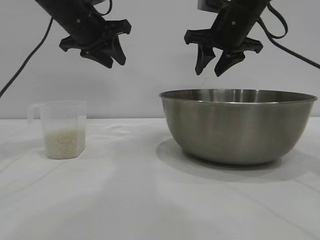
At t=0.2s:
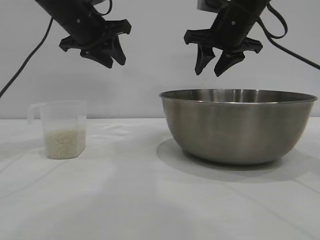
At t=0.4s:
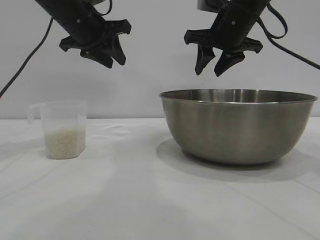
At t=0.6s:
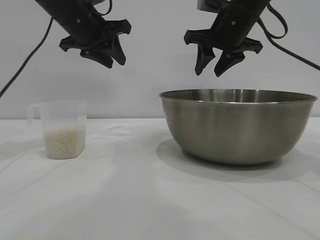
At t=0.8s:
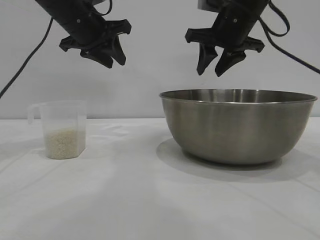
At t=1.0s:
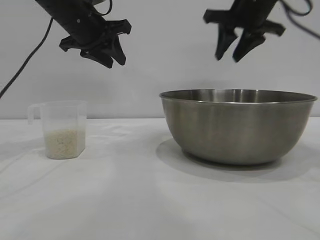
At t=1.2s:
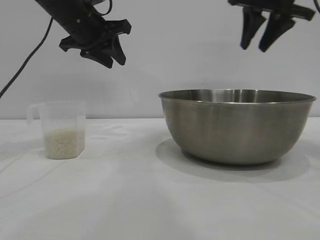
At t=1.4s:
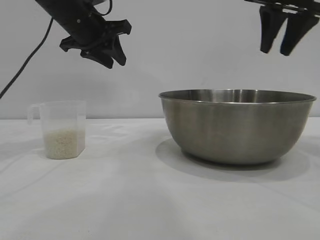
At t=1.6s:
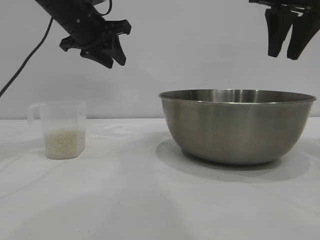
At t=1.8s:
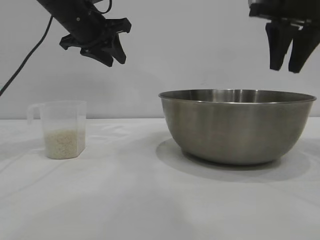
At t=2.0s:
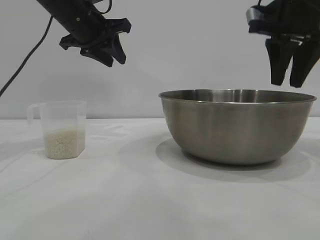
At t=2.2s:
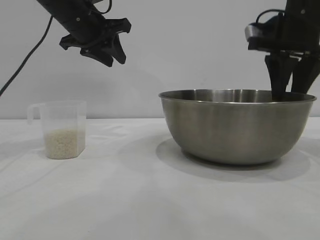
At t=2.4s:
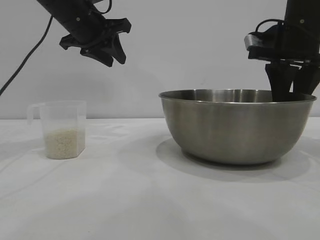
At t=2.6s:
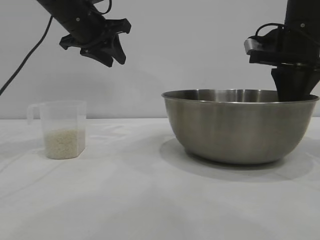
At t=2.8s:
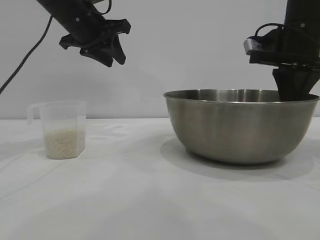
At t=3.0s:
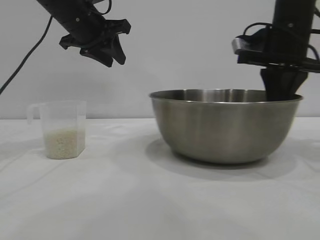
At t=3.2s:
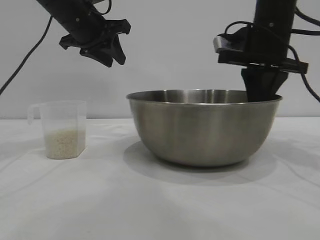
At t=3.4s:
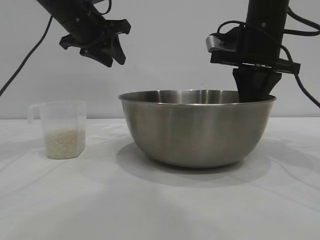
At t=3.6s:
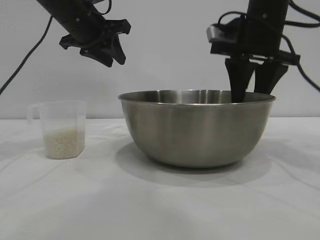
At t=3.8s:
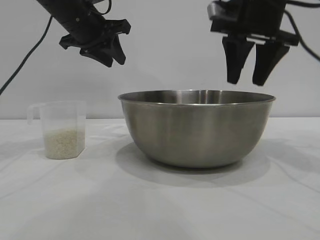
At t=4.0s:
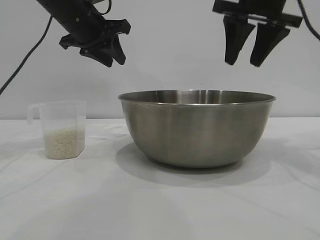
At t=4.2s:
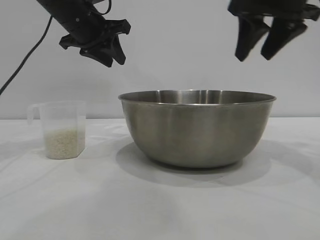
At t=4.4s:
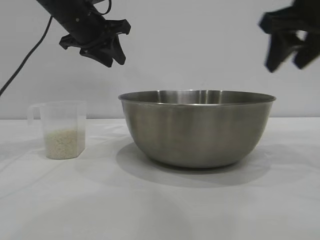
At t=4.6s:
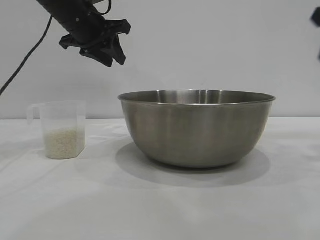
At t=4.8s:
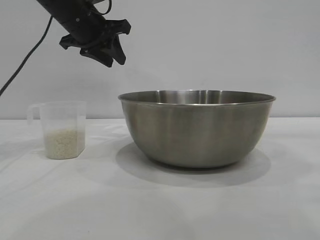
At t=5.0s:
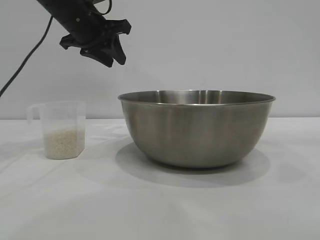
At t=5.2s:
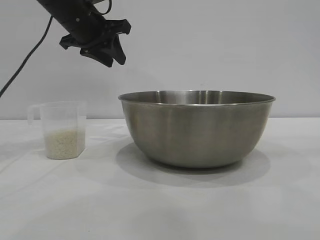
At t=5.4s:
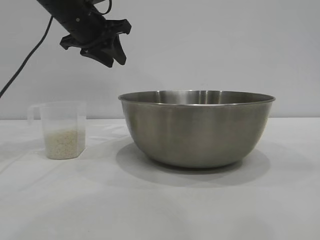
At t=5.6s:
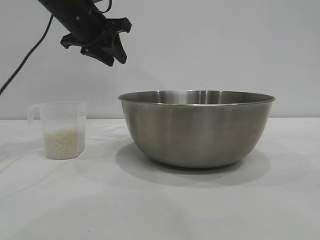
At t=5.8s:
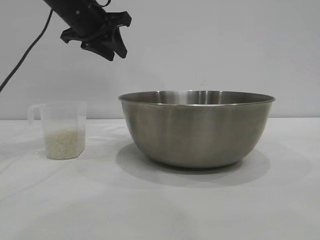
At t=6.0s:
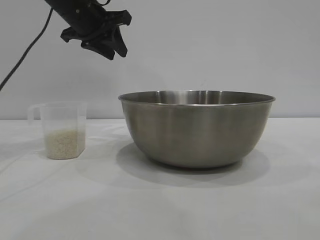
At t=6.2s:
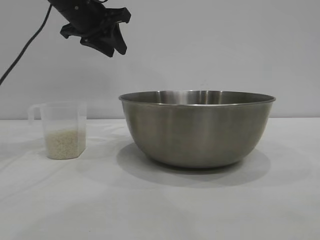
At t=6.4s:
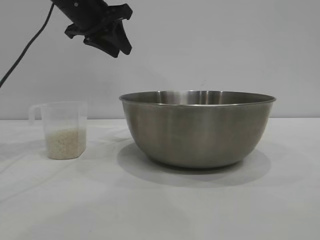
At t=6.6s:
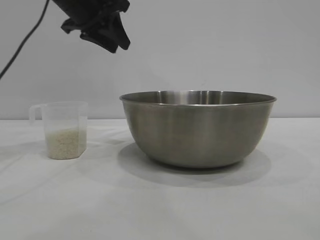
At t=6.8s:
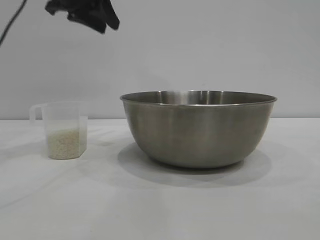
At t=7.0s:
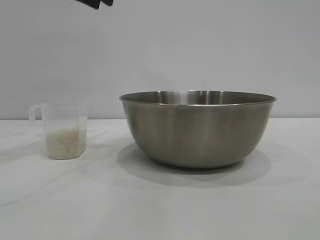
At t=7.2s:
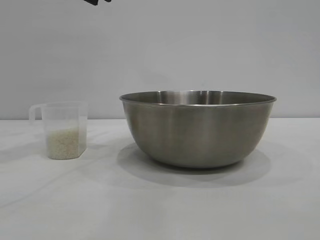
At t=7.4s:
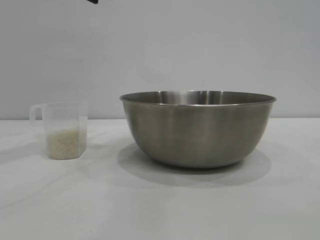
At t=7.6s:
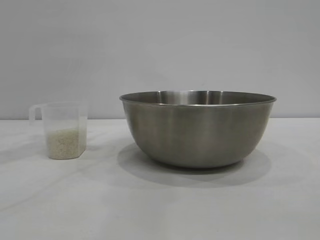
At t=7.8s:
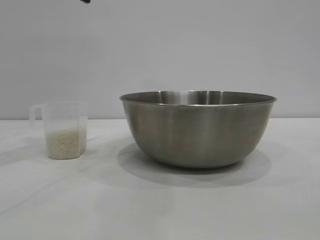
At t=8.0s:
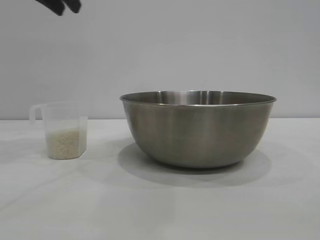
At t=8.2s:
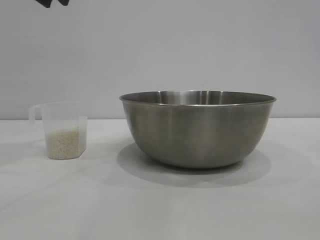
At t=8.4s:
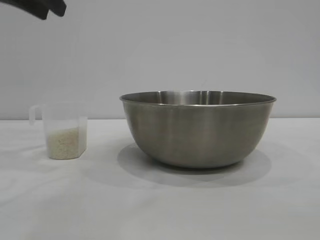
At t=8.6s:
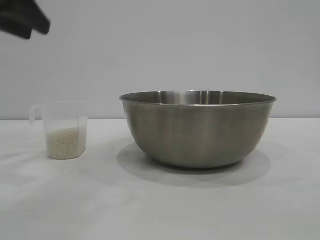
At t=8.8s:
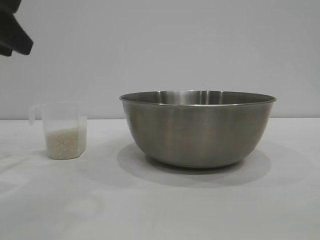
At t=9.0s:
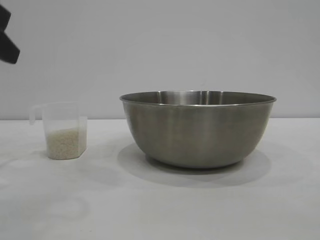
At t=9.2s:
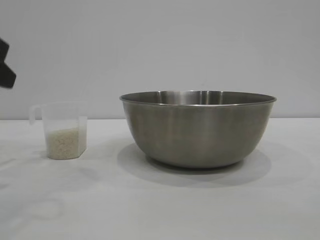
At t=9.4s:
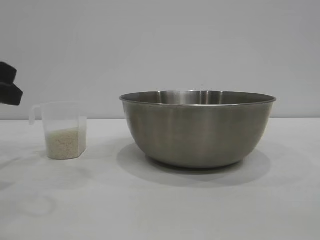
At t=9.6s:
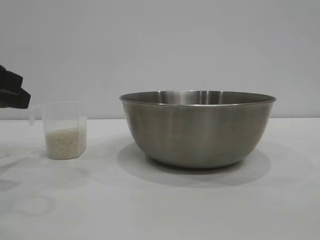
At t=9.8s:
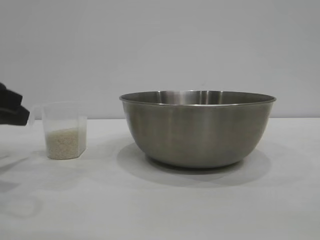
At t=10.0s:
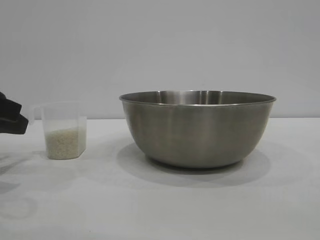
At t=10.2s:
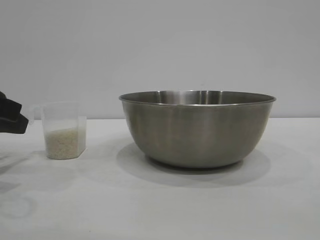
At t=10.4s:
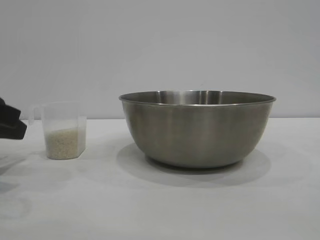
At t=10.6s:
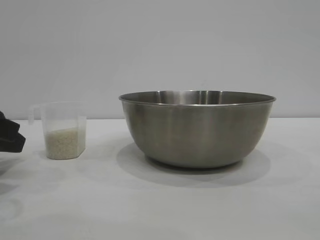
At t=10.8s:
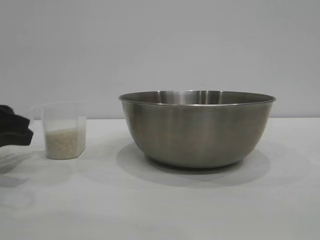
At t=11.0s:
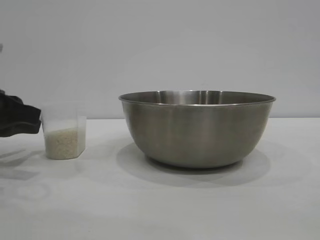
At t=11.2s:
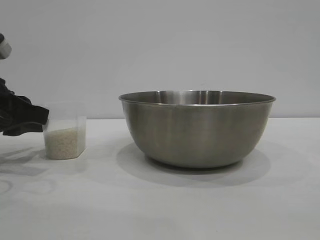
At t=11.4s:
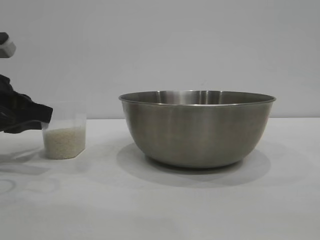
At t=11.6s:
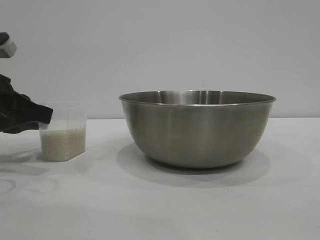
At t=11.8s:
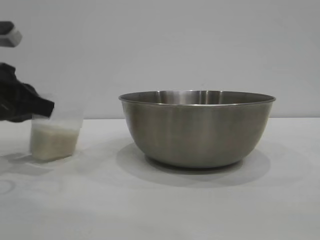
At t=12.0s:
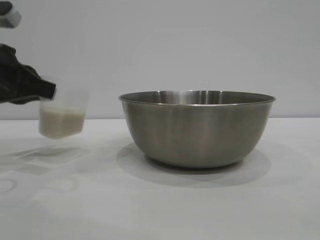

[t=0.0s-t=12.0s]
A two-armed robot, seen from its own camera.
Task of the whole recording: the right gripper grasp the rice container and place it in the center of the table, the left gripper grasp the rice scoop and pour the rice into the rice container.
Step, t=0.0s to t=4.0s: Move the bowl to the center of view with the right gripper.
Step, t=4.2s to t=12.0s: Pick up the cup with rice in it with the left gripper.

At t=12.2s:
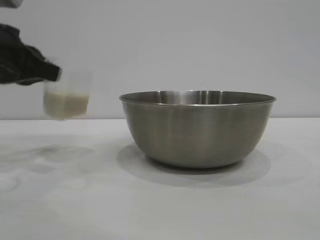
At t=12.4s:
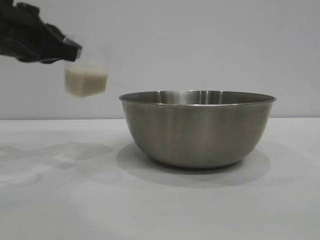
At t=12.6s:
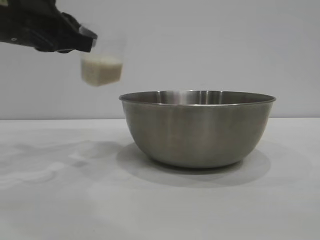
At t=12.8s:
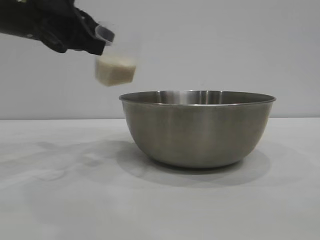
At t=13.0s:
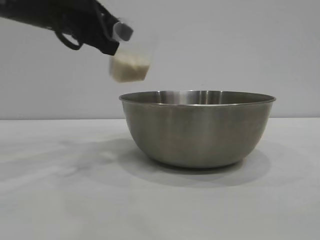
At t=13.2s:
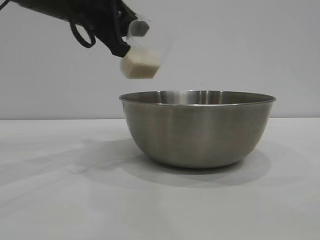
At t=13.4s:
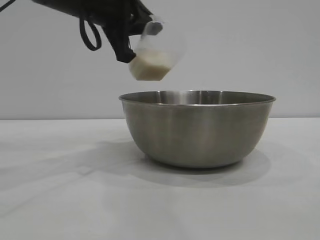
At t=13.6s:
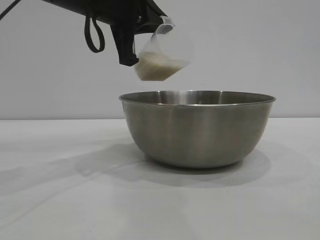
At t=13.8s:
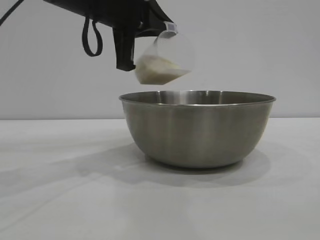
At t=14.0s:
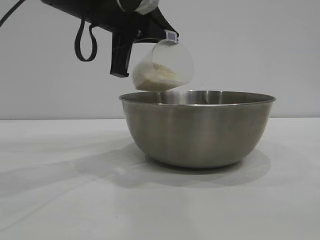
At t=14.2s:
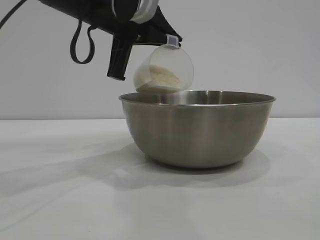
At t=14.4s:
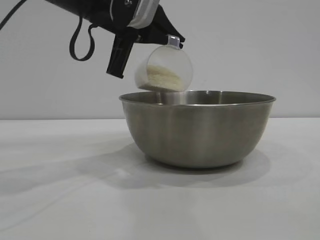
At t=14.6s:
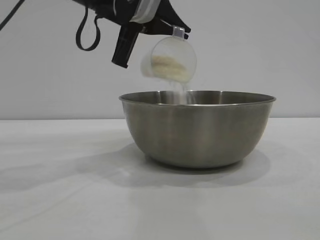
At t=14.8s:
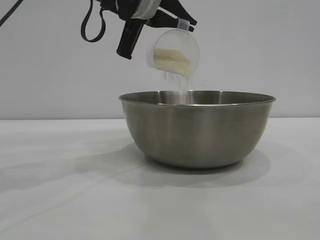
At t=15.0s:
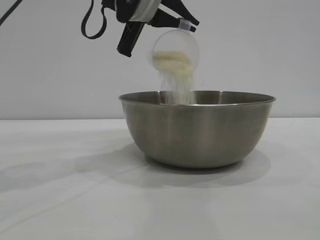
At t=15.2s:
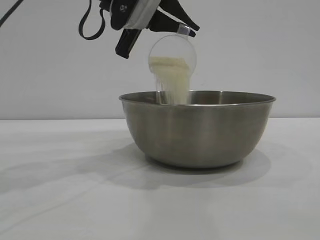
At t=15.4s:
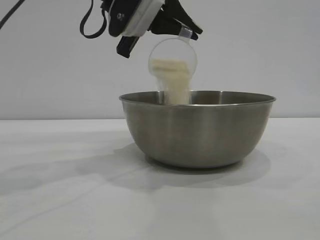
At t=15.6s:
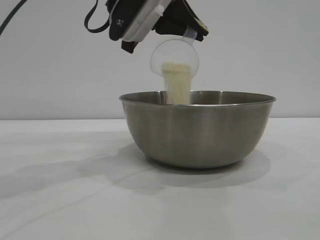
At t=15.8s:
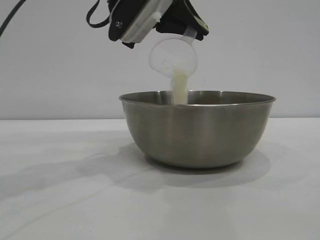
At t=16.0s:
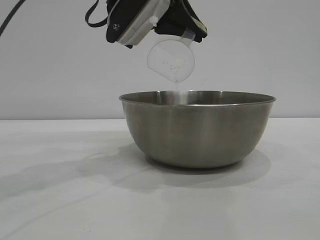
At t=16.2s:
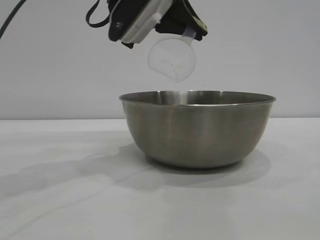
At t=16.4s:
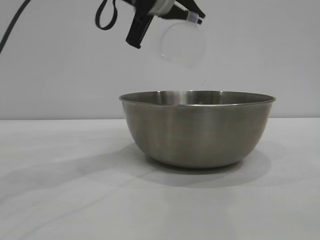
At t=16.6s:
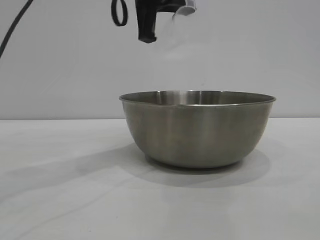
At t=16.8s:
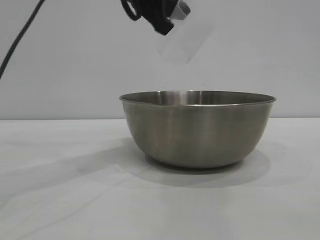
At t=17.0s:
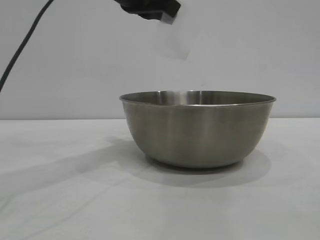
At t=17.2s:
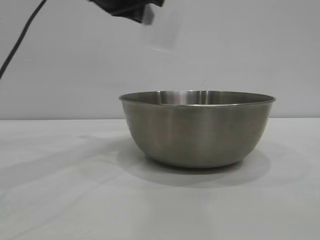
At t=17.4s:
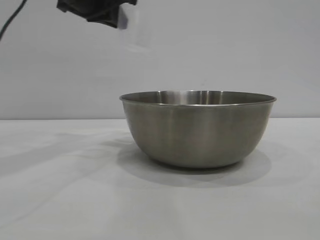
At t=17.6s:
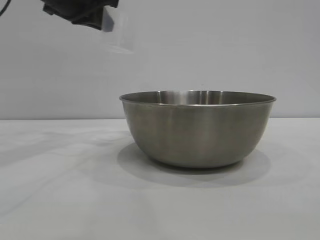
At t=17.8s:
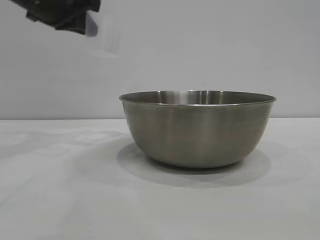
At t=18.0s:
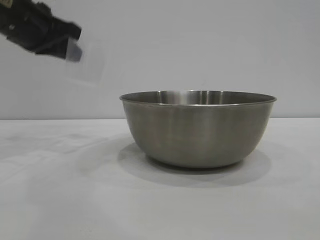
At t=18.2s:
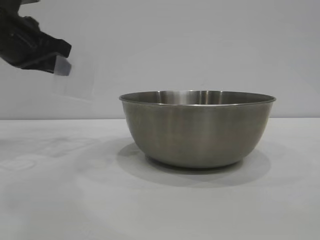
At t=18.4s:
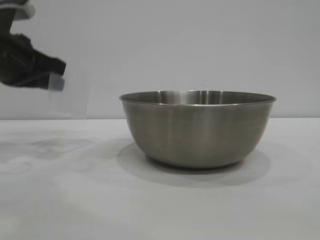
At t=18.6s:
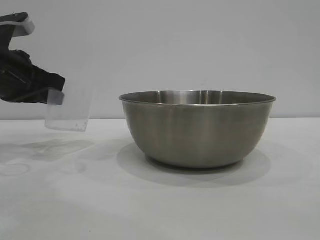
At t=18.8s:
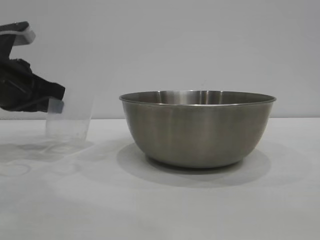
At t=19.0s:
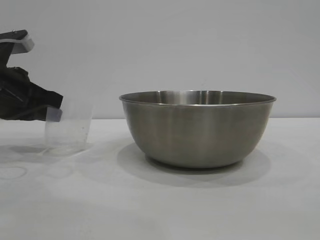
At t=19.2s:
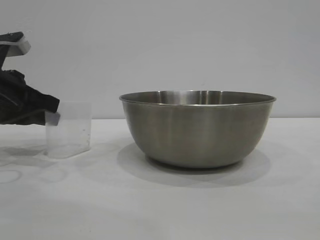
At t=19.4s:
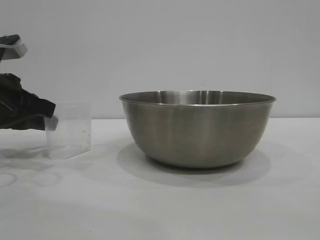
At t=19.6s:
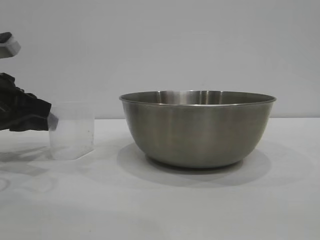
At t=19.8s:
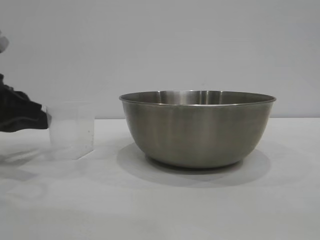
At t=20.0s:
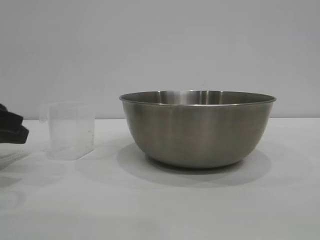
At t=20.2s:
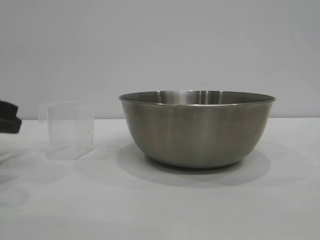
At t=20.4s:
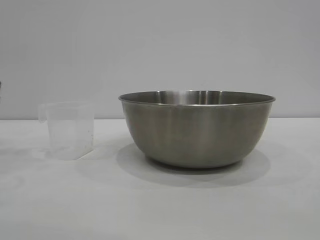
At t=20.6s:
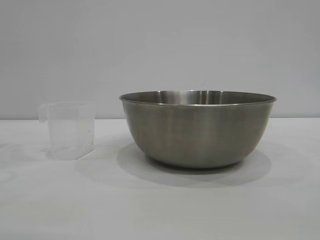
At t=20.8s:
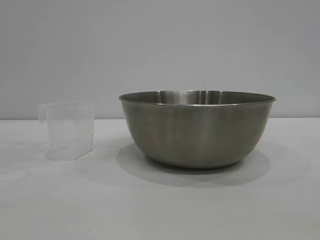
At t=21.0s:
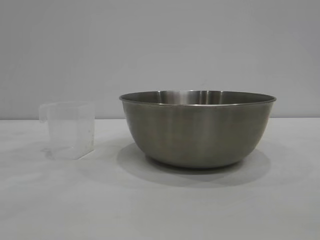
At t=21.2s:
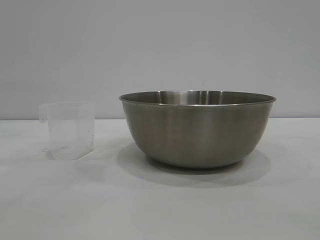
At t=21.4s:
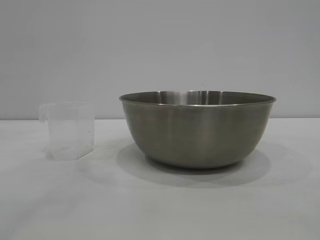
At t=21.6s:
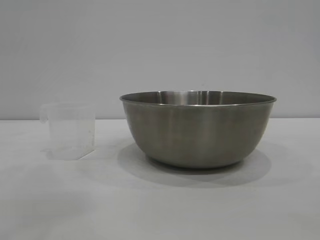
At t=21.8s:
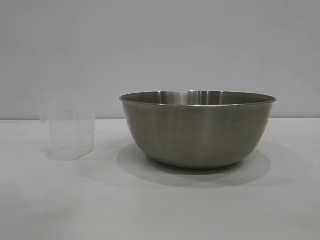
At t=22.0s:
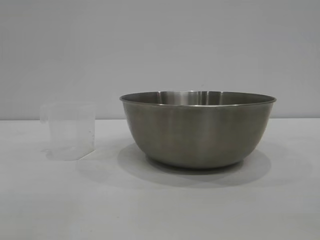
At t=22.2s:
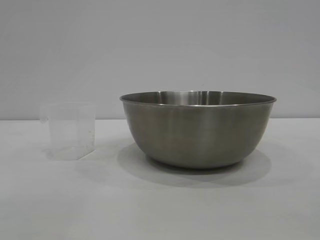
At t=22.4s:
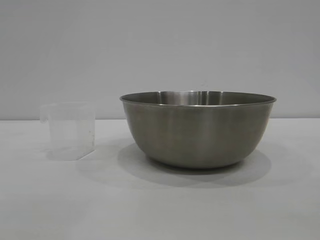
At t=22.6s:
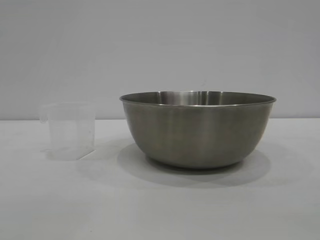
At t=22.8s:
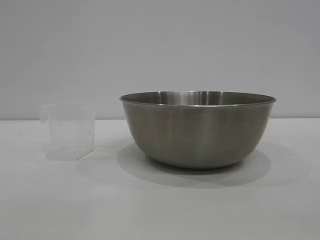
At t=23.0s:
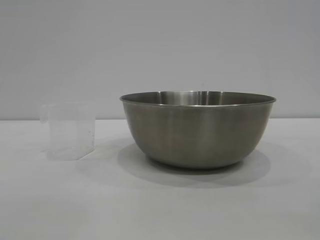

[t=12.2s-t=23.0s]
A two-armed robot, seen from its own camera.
Task of the whole recording: the right gripper grasp the rice container and place it in the center of the table, the left gripper grasp the rice scoop and pour the rice into the rice container.
Step, t=12.2s to t=16.4s: Pour the rice from the cup into the bowl with the left gripper.
Step, t=16.6s to t=20.0s: Place the cup on the table with the left gripper.
